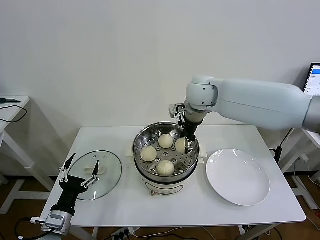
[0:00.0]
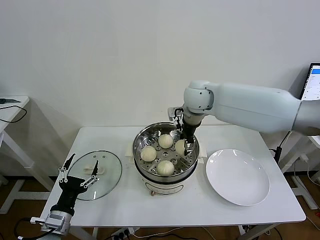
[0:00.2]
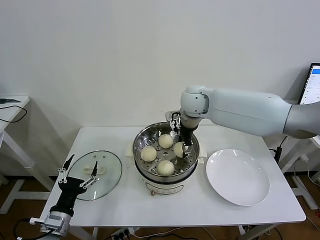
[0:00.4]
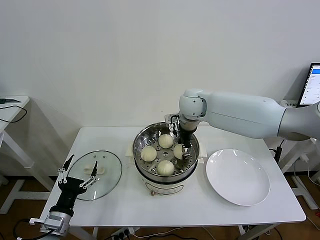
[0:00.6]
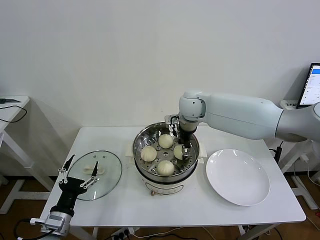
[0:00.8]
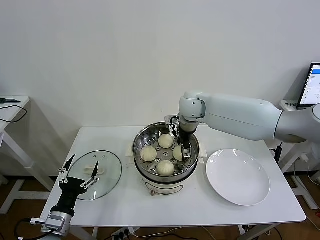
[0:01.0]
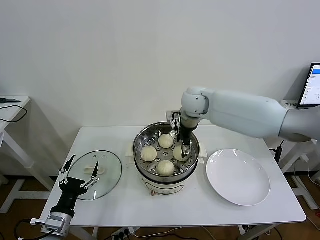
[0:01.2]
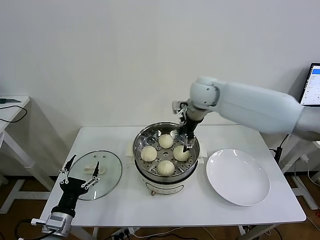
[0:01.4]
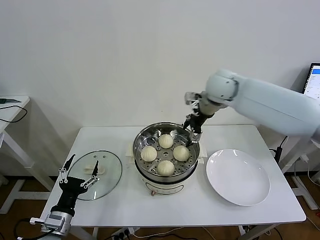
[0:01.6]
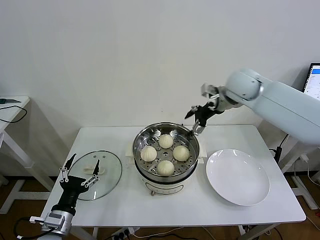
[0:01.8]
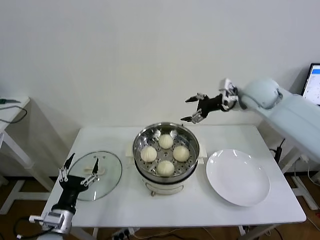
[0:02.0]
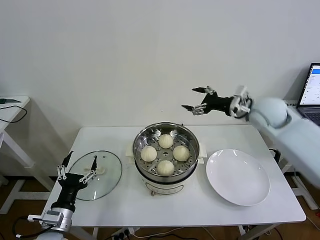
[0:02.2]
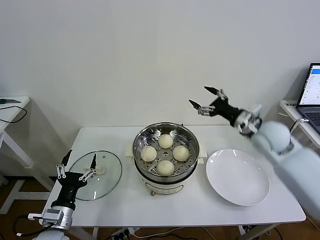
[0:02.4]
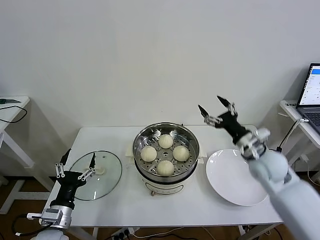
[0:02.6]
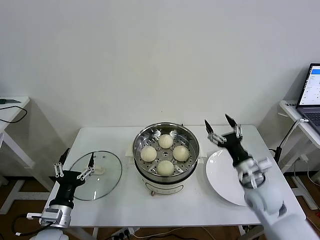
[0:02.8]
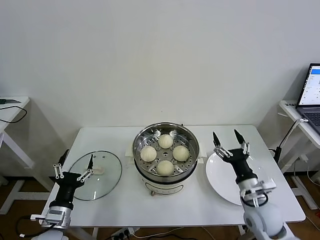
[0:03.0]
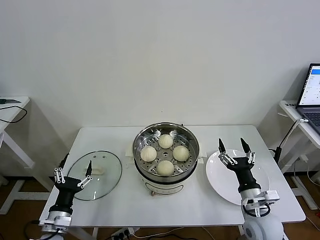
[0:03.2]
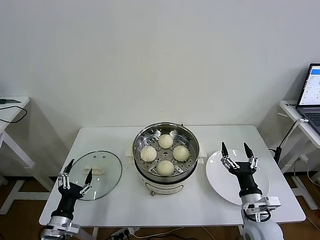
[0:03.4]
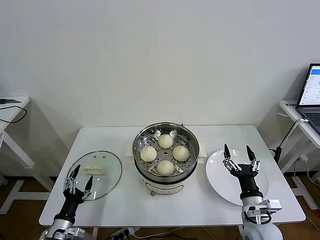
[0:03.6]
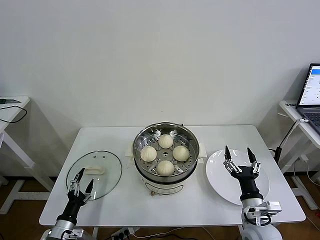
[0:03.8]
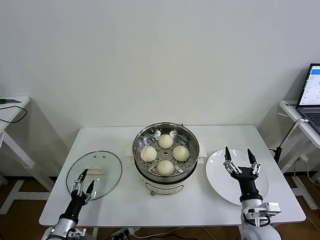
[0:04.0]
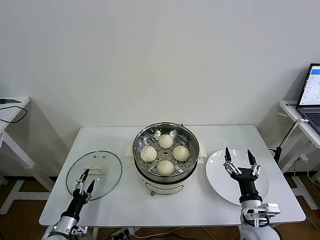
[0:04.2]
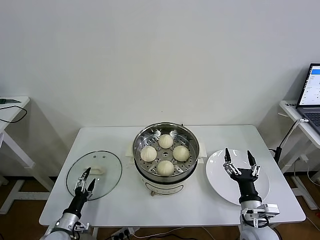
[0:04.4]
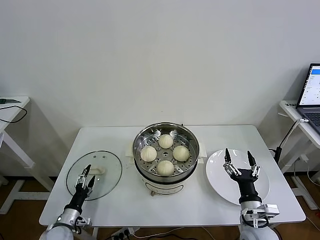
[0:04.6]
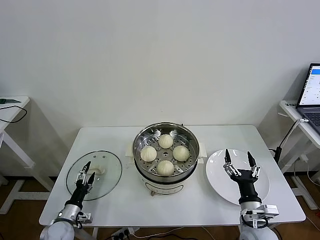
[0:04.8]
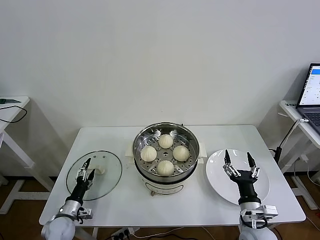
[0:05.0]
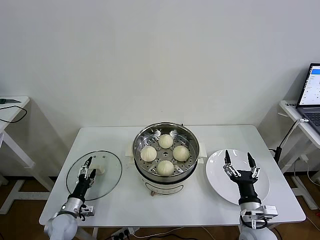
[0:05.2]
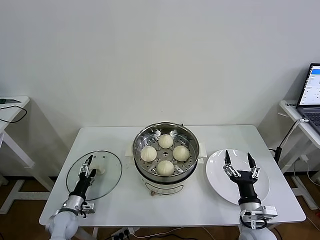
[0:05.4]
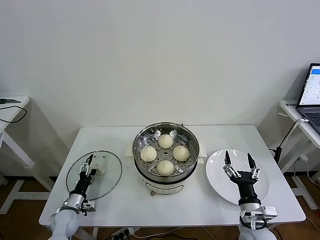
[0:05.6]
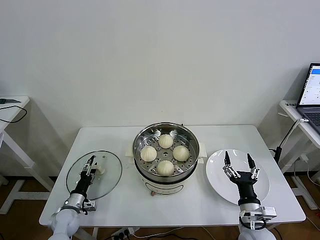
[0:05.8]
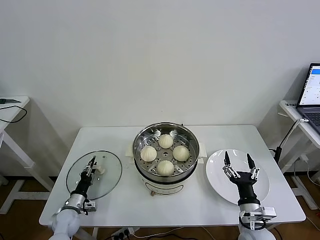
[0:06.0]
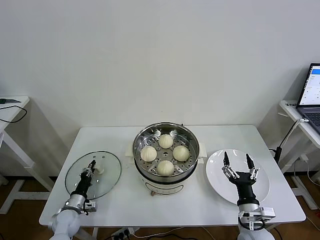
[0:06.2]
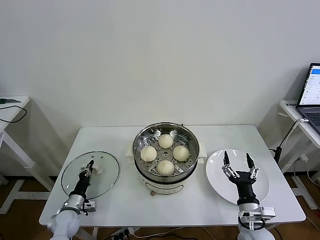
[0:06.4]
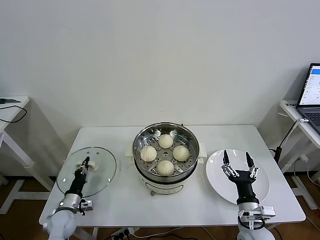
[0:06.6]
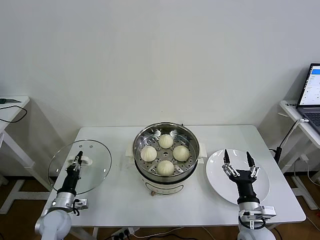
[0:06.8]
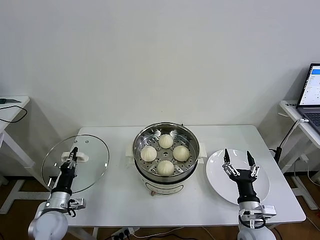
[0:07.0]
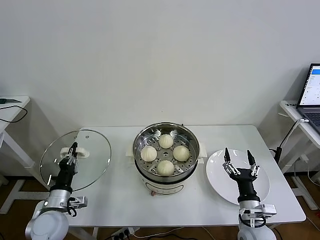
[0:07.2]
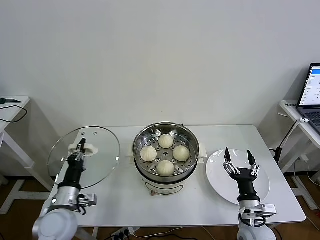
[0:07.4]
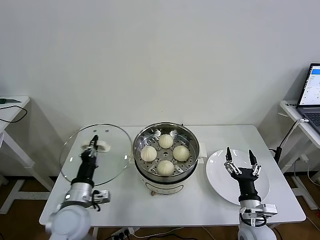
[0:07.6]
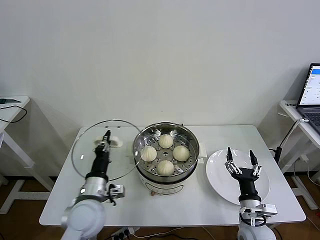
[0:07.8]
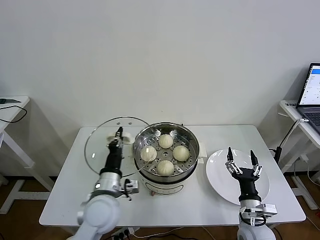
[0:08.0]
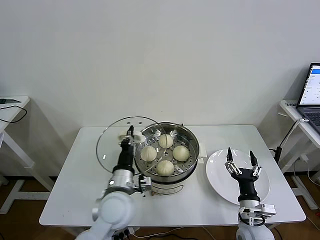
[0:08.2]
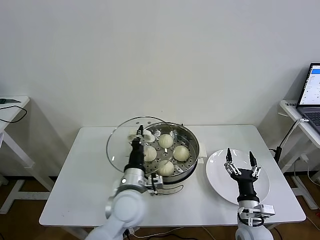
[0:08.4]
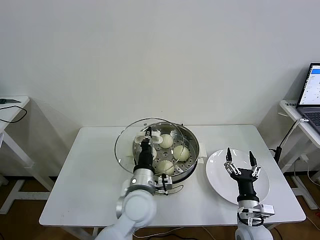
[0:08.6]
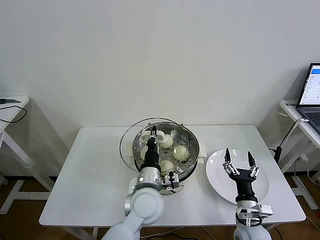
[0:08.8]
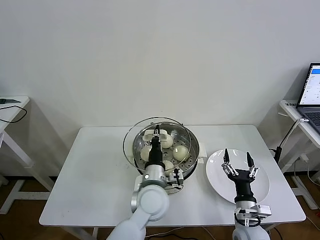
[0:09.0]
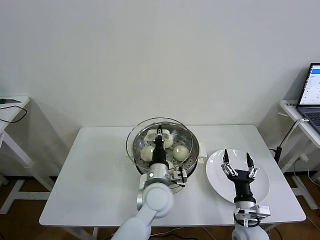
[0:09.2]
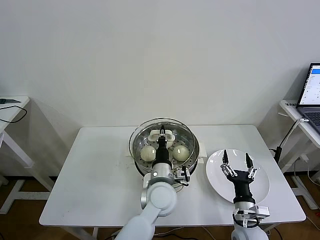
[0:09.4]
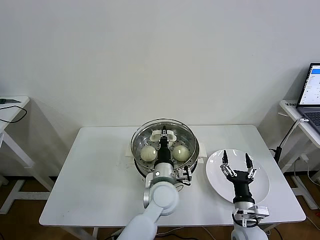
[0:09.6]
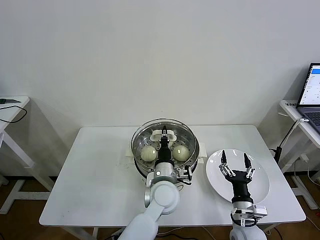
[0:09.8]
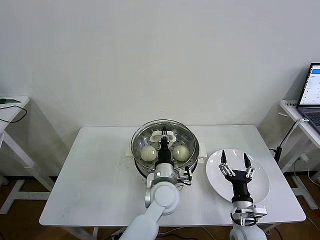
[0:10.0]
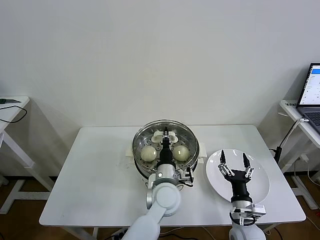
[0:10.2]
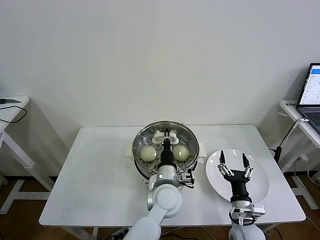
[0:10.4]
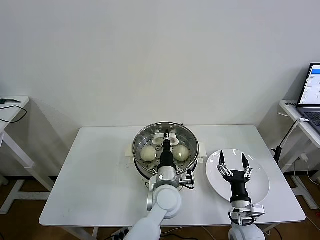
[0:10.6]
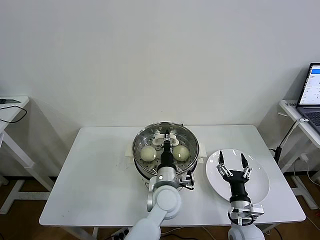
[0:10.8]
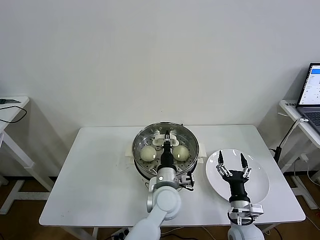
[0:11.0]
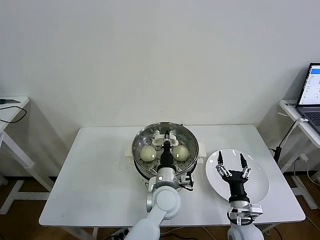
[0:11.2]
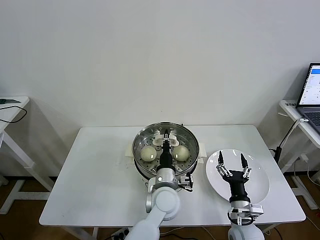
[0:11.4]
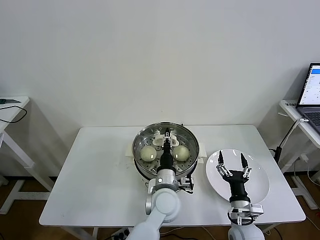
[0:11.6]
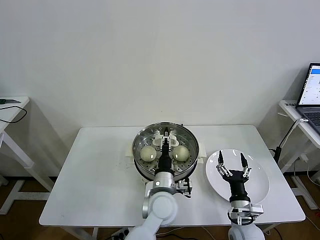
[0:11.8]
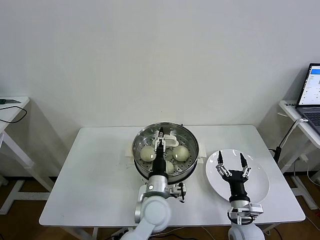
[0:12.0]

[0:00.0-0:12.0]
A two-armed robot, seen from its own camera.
Task of the whole recording: take steamed baozi put them in steamer then cover it.
Step, 1.2 to 6.2 s: Grasp the pot lid with left gripper.
0.0 to 1.6 s: The right gripper travels to the right by approximately 5 cm, and opens.
1.6 to 3.0 s: The right gripper shifts roughly 40 cm backward and downward.
3.0 to 4.4 s: The left gripper goes some 15 cm downward. Meanwhile the right gripper heads backward, covering about 5 cm.
4.4 to 6.0 s: The left gripper heads forward, covering about 10 cm, and closes its fingers.
6.0 to 7.6 s: The left gripper heads upward and to the right, covering about 20 cm, and closes its fingers.
7.6 to 9.0 s: The left gripper is displaced to the right by some 20 cm.
9.0 to 10.4 s: The left gripper ends up approximately 5 cm from where it was.
10.4 to 12.0 s: The left gripper opens its fingers.

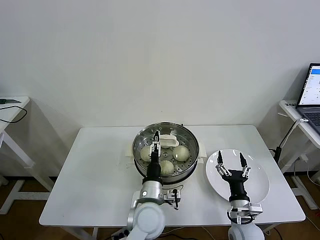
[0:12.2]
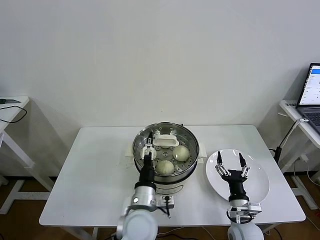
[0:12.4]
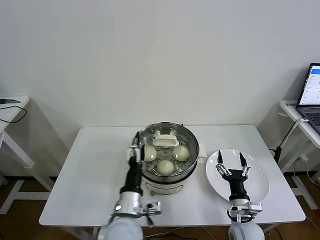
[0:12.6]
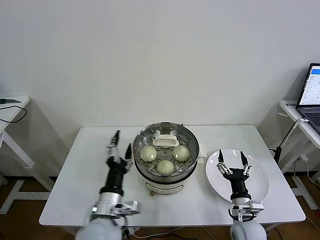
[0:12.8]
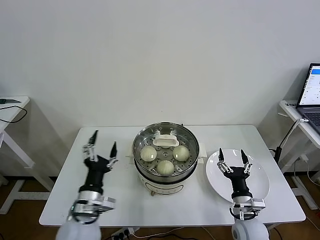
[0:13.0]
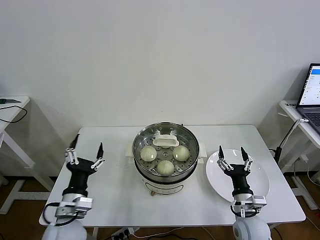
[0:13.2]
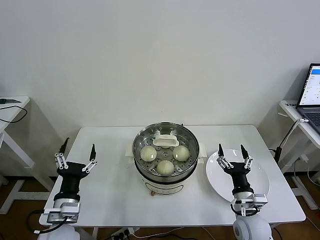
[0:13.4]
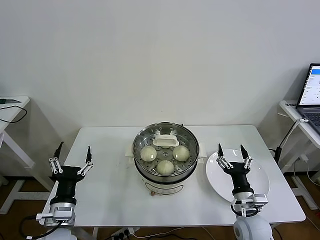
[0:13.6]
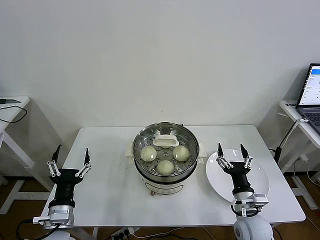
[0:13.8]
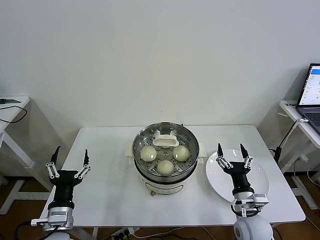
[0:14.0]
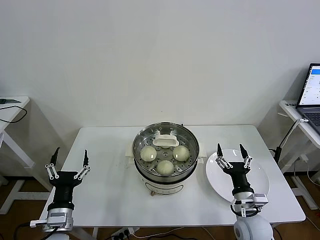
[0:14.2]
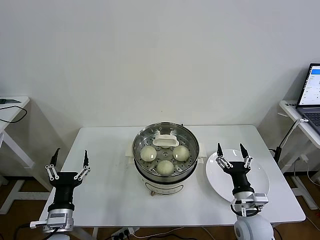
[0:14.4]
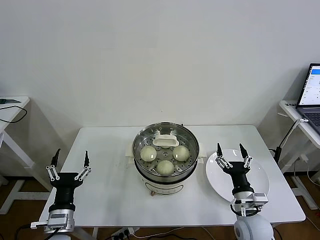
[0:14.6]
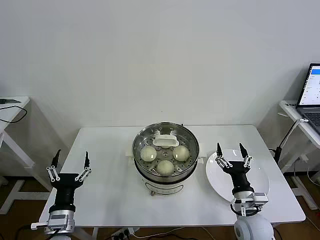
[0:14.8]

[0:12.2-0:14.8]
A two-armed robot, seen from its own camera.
Task of the whole recording: take steamed baozi put them in steamer then cover it.
12.2 to 13.4 s: The left gripper travels to the left by some 25 cm.
13.4 to 14.8 s: There are only small adjustments of the grippers.

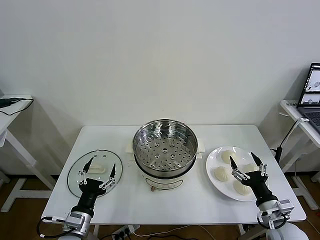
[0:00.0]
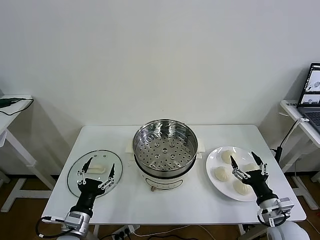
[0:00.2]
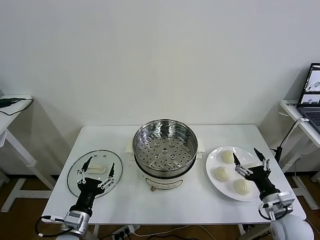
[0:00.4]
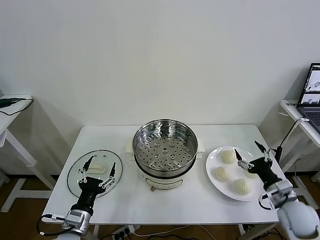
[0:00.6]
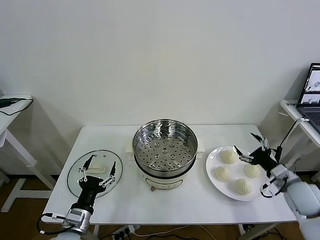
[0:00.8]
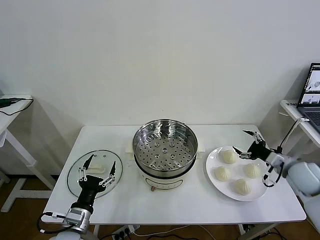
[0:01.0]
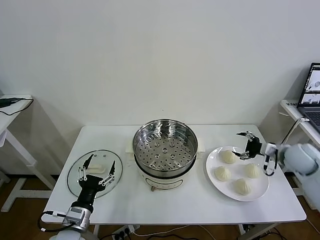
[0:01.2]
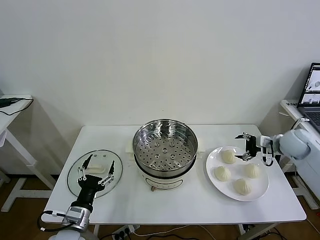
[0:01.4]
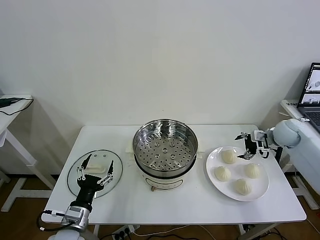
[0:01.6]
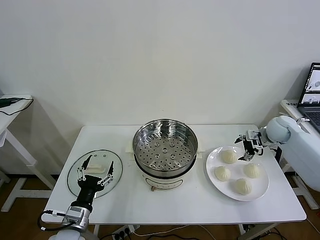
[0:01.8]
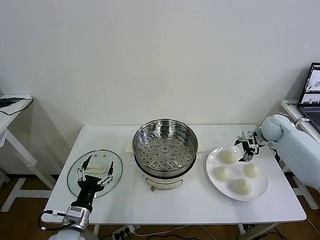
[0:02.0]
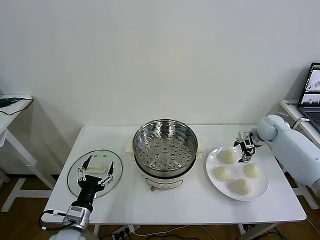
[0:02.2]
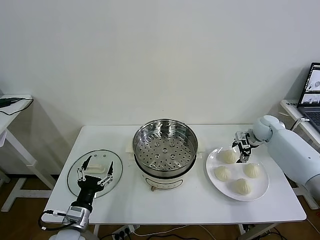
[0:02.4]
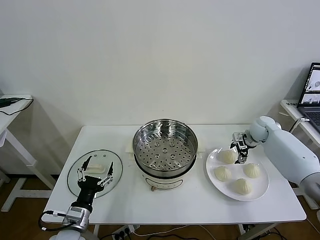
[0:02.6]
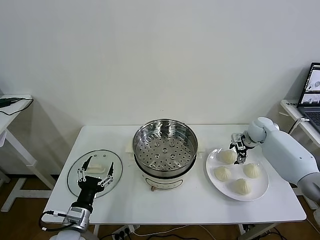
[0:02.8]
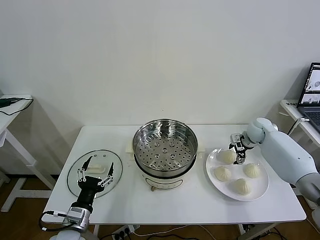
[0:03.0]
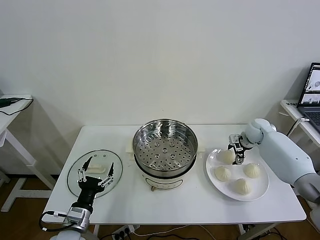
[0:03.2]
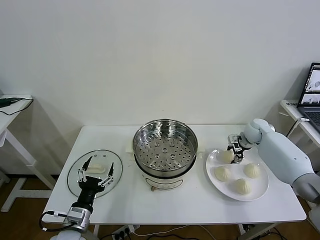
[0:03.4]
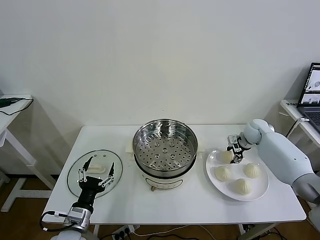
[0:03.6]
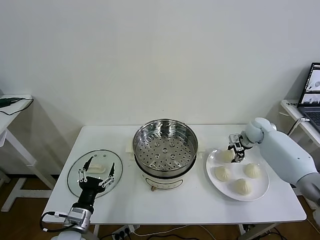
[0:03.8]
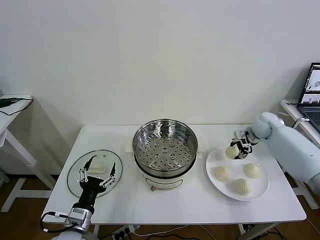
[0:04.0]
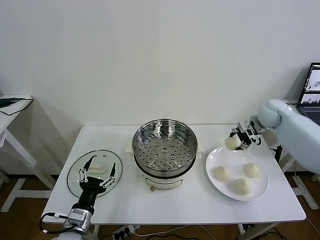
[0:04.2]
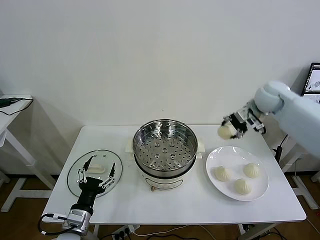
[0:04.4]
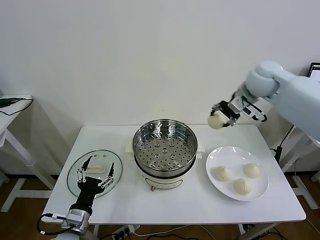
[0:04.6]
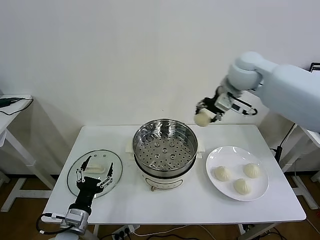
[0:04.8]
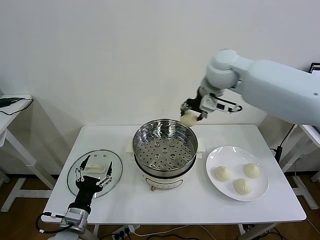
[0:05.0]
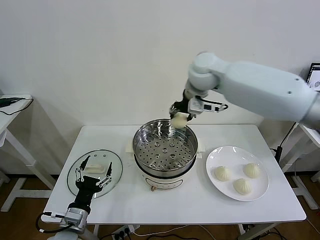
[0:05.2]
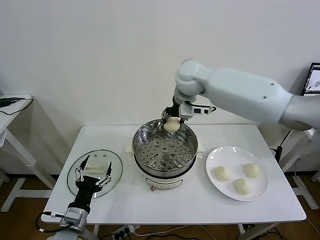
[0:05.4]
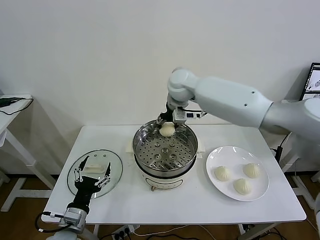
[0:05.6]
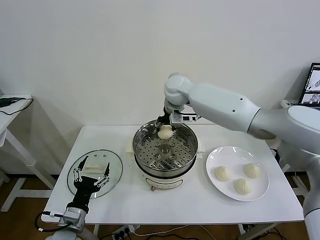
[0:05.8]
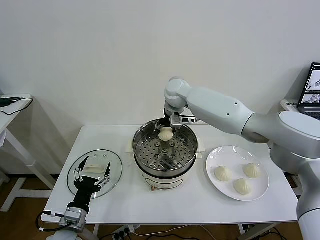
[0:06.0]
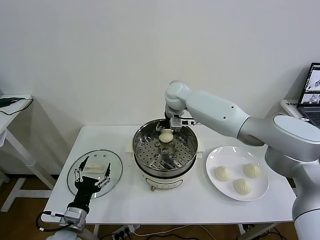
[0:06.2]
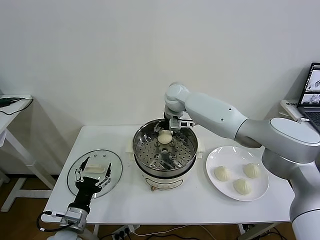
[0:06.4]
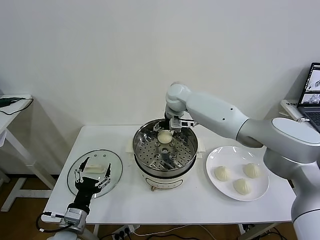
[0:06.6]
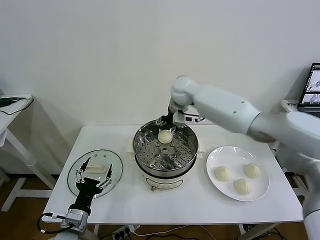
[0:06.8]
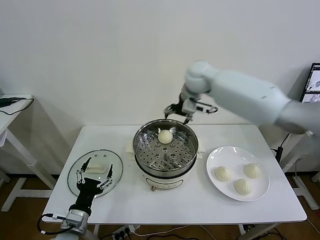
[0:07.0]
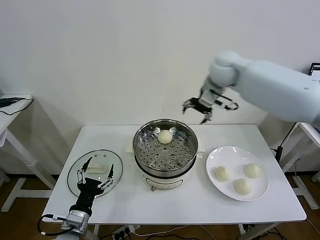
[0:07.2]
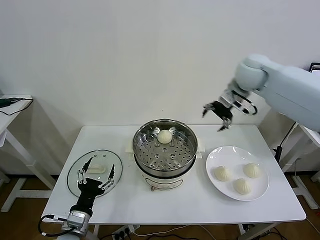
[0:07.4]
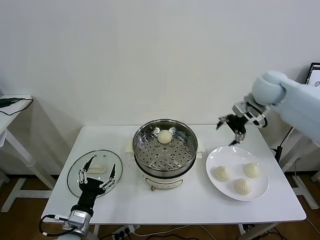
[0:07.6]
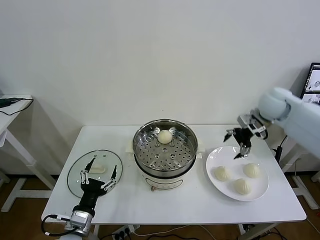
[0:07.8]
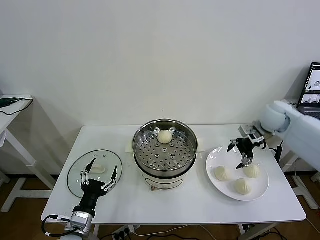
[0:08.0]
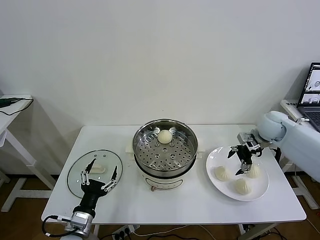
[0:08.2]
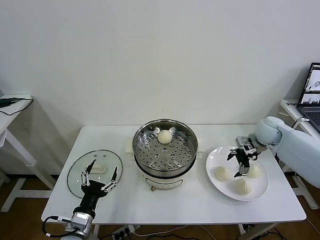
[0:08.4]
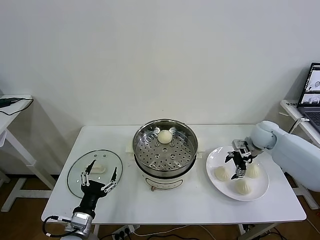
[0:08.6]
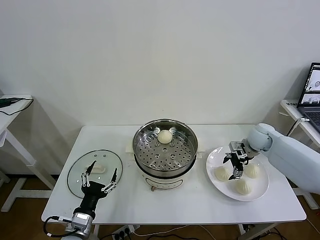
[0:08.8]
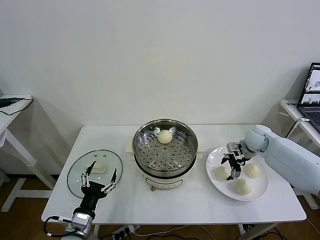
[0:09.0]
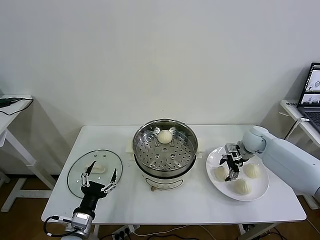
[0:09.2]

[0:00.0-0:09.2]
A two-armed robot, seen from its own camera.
Task of the whole recording: take steamed baozi put them in steamer then cover it.
Step, 0.0 to 3.4 s: Grasp the baozi in the plate with right gripper.
Step, 3.6 to 6.4 s: Place the baozi on the steamer with right gripper.
1.6 to 3.0 s: The right gripper is displaced downward and forward by roughly 10 cm.
3.0 to 4.6 s: The right gripper shifts some 30 cm upward and to the left, and closes.
4.6 to 6.2 s: The right gripper is displaced to the left and downward by about 25 cm.
6.2 to 7.6 s: The right gripper goes roughly 30 cm to the right, and opens.
7.6 to 9.2 s: The right gripper moves downward, some 20 cm.
